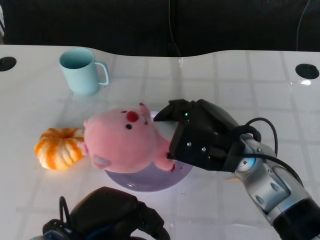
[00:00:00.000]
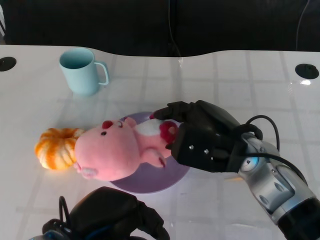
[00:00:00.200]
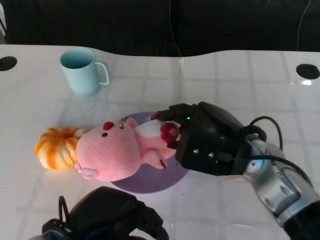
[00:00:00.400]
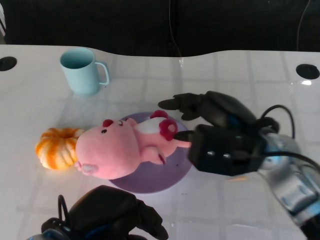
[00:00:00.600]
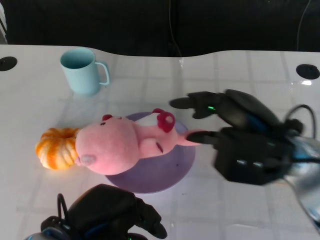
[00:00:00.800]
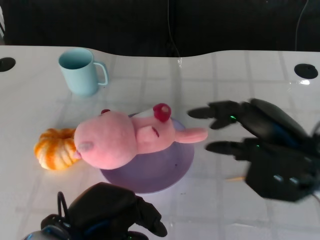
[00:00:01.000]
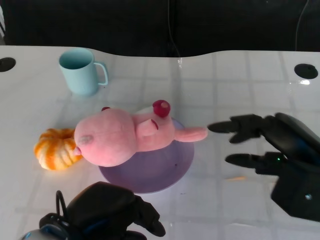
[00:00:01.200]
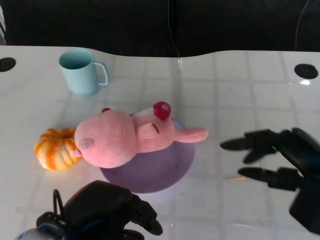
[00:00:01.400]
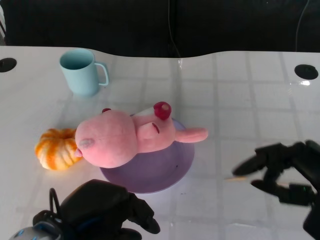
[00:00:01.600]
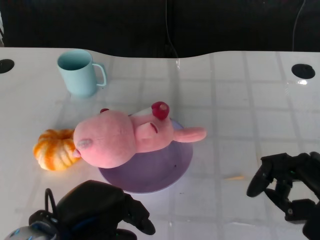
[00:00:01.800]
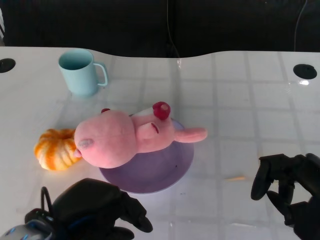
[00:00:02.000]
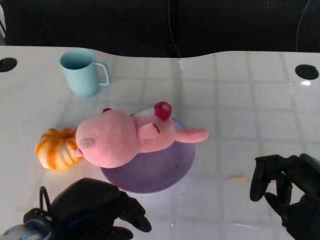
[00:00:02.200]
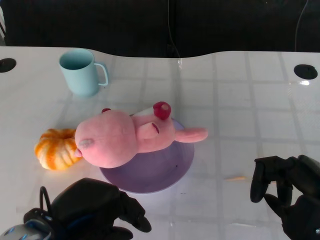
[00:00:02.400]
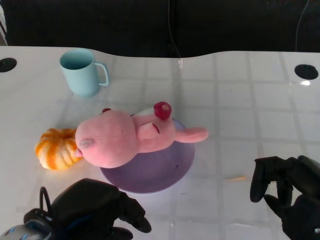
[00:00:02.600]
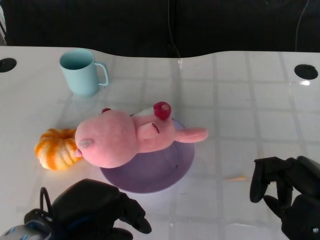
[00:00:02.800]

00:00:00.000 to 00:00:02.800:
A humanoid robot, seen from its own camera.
Task of the whole recording: Pick up the doll on the other side of the plate and place it into the plate.
00:00:00.000 to 00:00:01.400: The right hand goes some 15 cm to the right and backward.
00:00:01.400 to 00:00:02.800: The hands stay close to where they were, moving slightly.

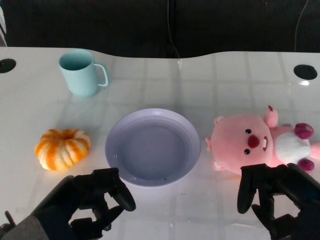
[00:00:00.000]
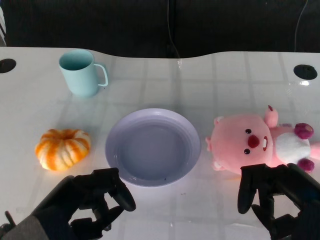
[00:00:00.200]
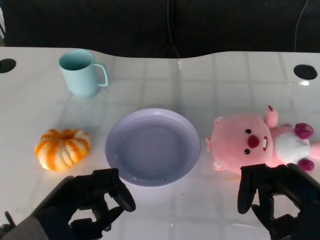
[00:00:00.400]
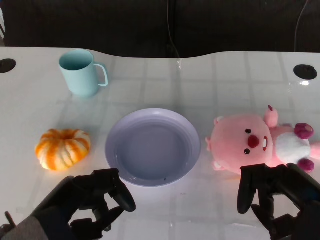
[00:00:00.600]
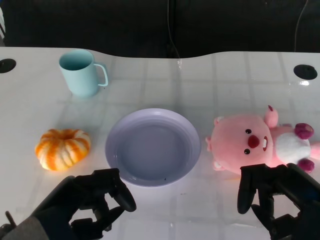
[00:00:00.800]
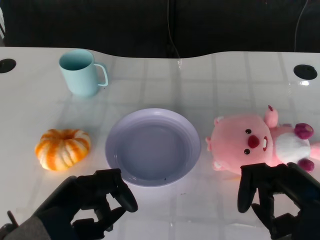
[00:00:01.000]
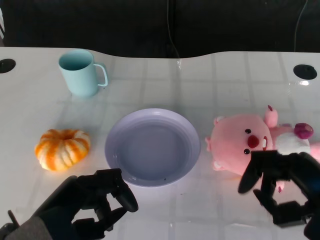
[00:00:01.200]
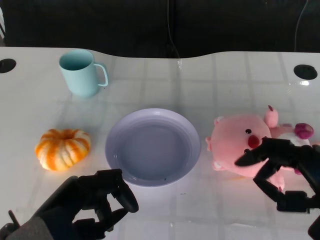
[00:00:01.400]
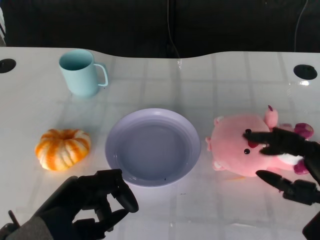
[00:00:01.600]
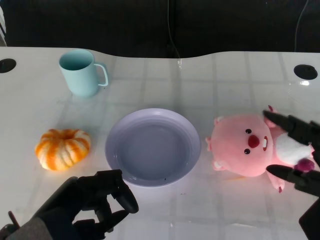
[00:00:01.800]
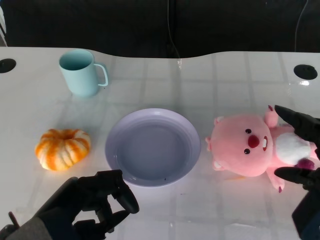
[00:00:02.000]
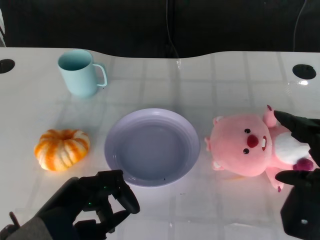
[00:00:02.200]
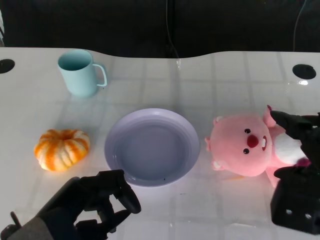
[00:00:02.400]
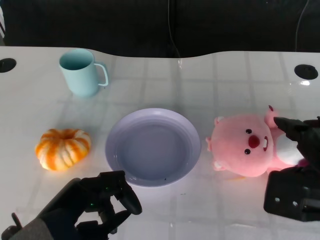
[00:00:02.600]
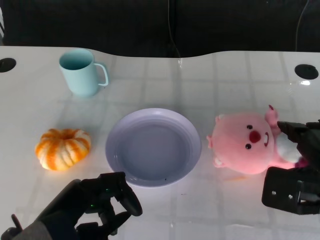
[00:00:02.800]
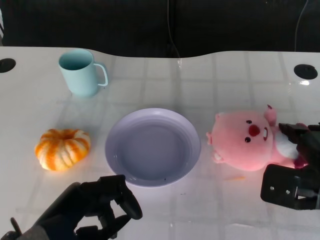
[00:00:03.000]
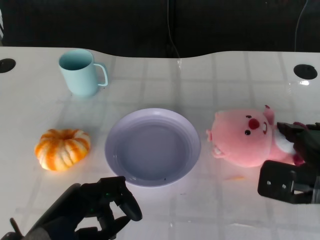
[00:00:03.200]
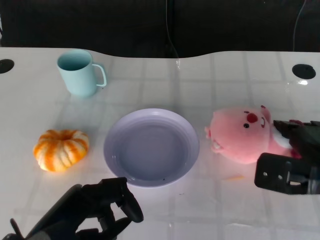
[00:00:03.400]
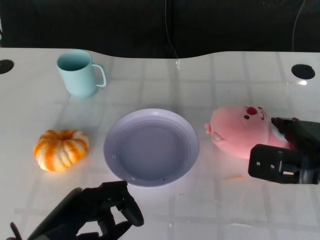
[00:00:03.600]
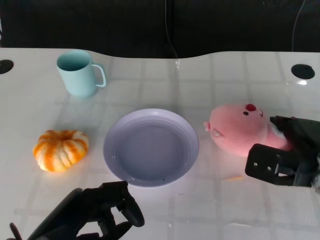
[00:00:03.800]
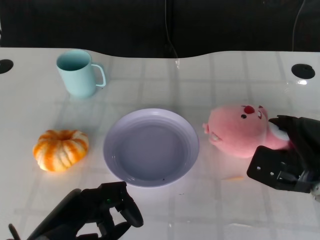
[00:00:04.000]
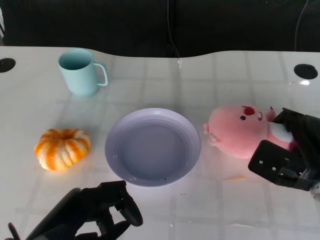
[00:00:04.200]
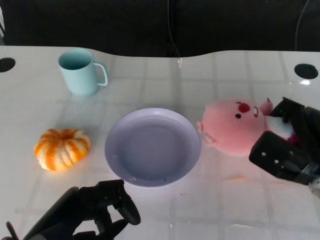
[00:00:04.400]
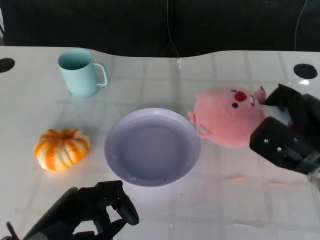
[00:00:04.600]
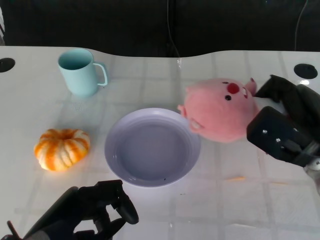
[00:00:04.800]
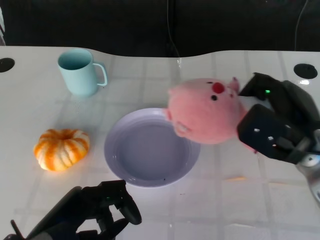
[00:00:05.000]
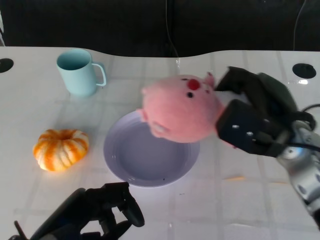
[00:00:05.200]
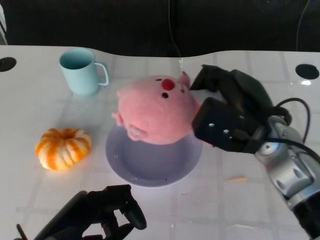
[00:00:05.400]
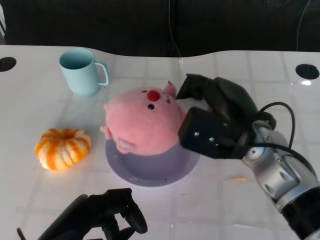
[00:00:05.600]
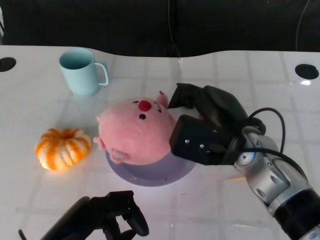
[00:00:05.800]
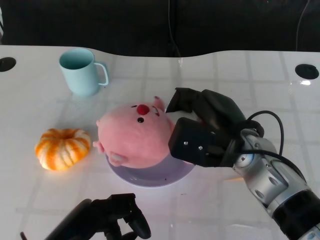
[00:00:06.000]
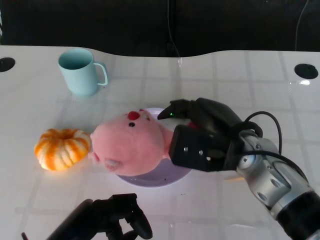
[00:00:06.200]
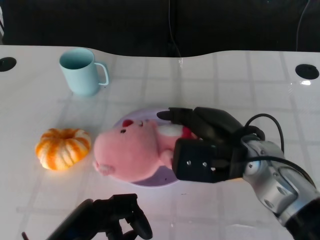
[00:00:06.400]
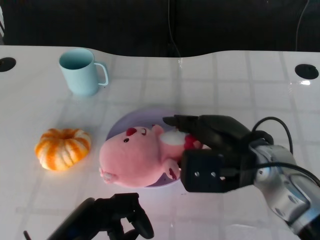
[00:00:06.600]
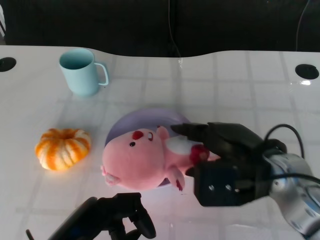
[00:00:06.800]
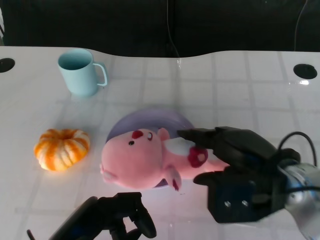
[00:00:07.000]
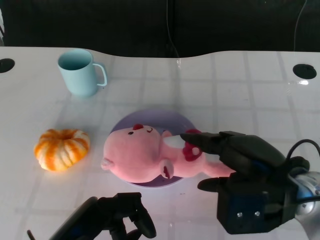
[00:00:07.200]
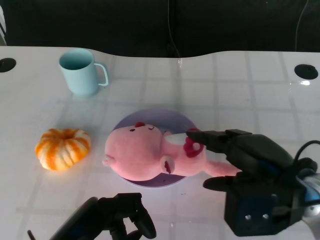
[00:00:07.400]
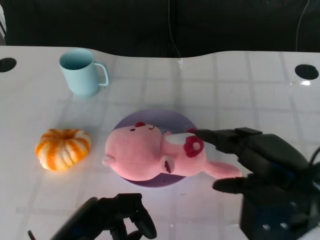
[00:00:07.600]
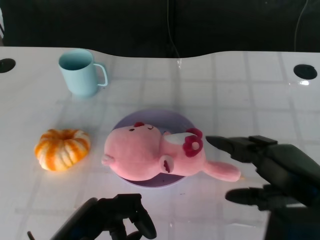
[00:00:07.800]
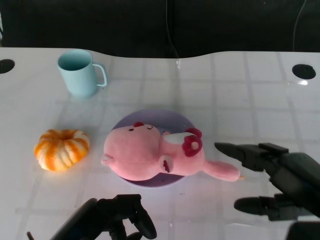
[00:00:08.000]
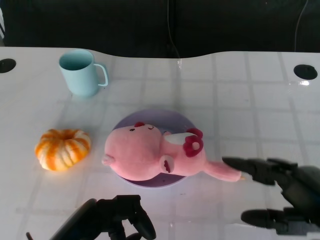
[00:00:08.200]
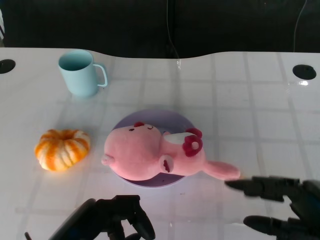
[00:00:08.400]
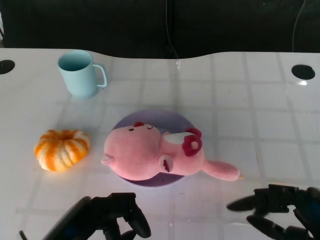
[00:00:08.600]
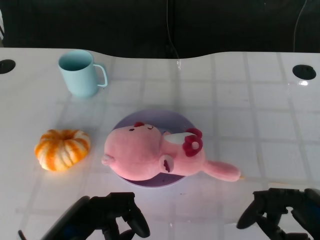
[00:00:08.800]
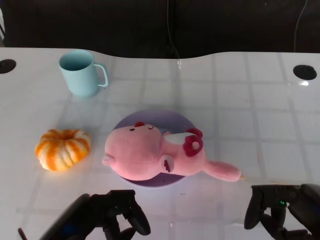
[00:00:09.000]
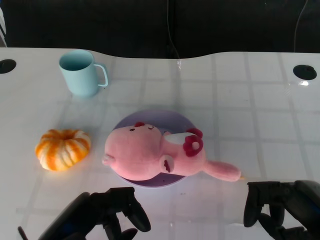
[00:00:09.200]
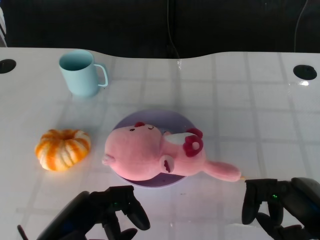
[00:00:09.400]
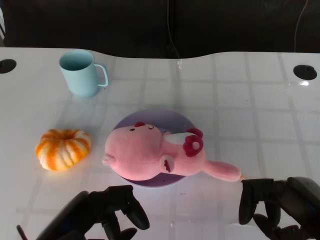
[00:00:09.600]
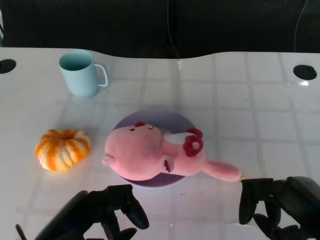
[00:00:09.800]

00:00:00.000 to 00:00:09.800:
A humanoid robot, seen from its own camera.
Task of the whole recording: Pick up the doll on the other side of the plate and place it into the plate.
Step, 00:00:01.000 to 00:00:04.600: Grasp the pink doll with the right gripper.
Step, 00:00:05.000 to 00:00:07.600: Place the pink doll into the plate with the right gripper.
00:00:01.400 to 00:00:02.800: The right hand travels forward by roughly 5 cm.
00:00:02.800 to 00:00:04.200: The right hand shifts approximately 5 cm downward.
00:00:04.200 to 00:00:05.600: The right hand heads to the left and upward, covering approximately 15 cm.
00:00:05.600 to 00:00:07.000: The right hand heads backward, covering approximately 5 cm.
00:00:07.000 to 00:00:08.400: The right hand travels backward and to the right by some 15 cm.
00:00:08.400 to 00:00:09.800: The hands stay close to where they were, moving slightly.

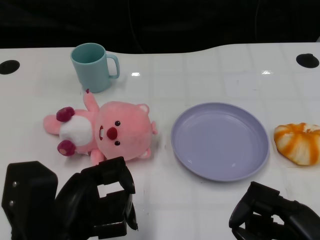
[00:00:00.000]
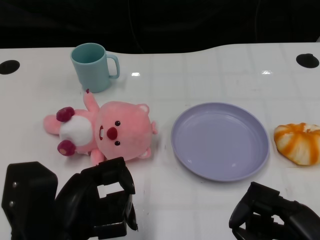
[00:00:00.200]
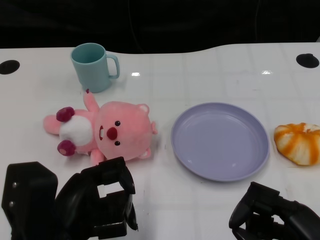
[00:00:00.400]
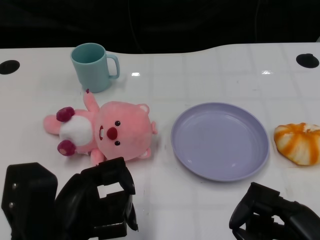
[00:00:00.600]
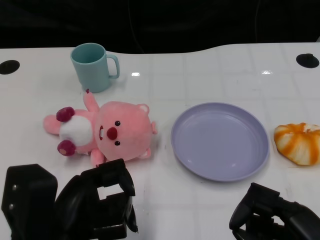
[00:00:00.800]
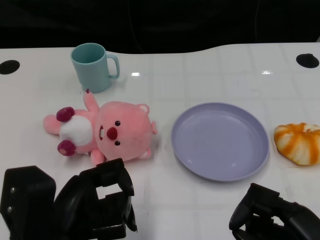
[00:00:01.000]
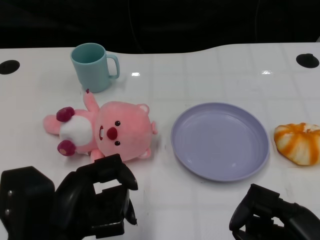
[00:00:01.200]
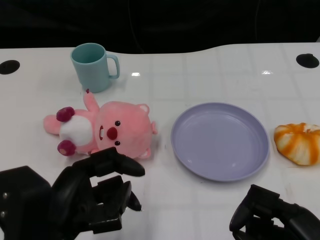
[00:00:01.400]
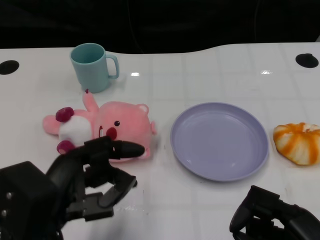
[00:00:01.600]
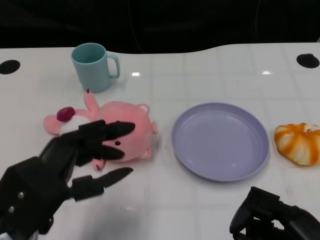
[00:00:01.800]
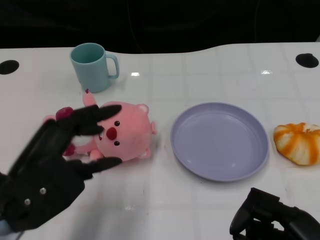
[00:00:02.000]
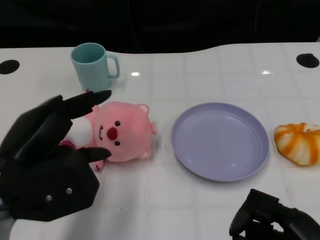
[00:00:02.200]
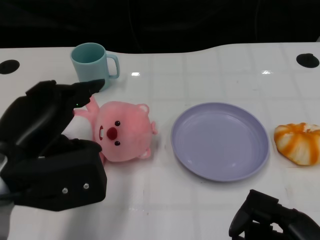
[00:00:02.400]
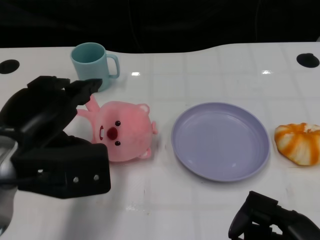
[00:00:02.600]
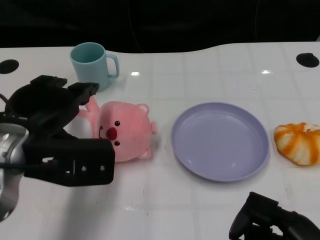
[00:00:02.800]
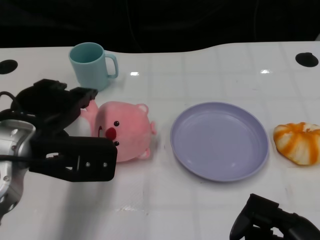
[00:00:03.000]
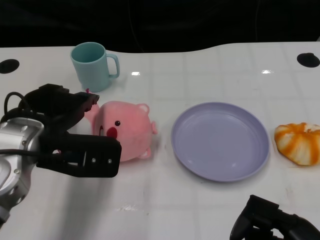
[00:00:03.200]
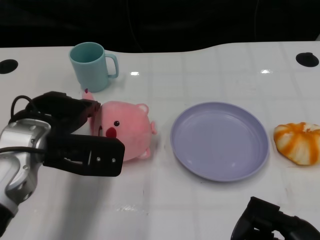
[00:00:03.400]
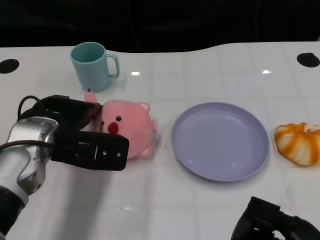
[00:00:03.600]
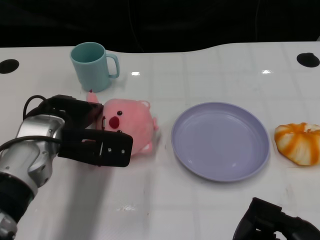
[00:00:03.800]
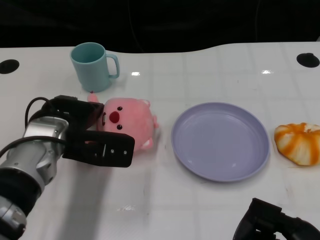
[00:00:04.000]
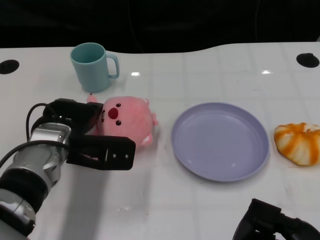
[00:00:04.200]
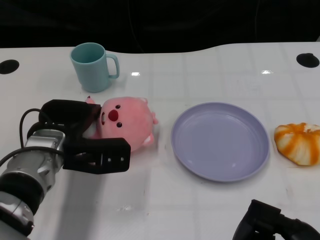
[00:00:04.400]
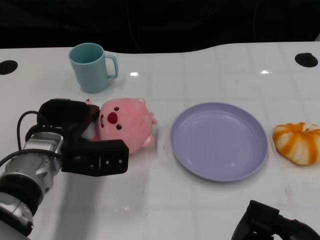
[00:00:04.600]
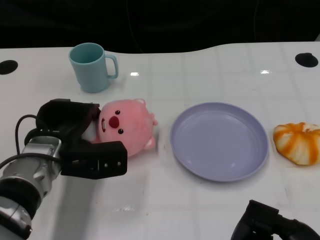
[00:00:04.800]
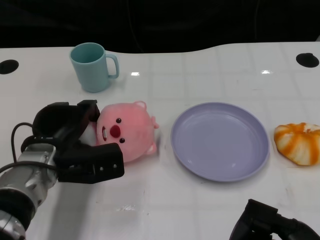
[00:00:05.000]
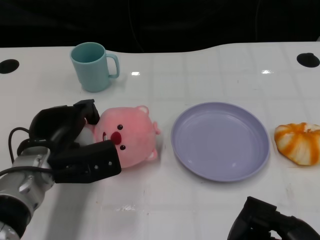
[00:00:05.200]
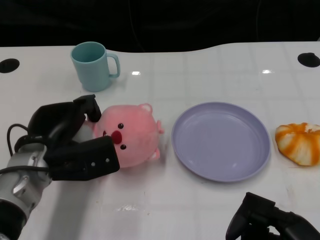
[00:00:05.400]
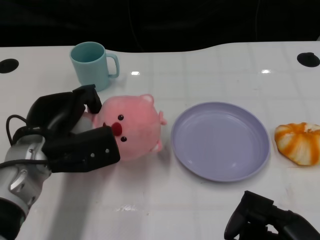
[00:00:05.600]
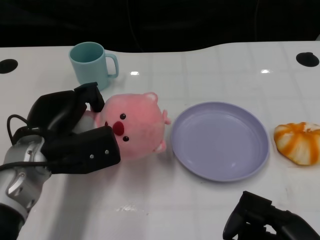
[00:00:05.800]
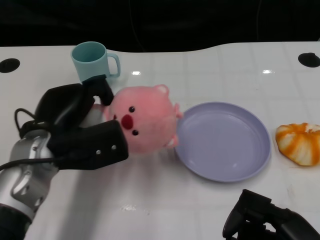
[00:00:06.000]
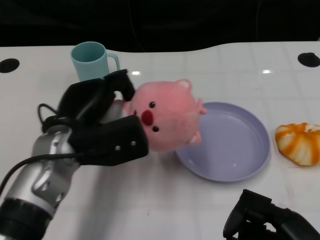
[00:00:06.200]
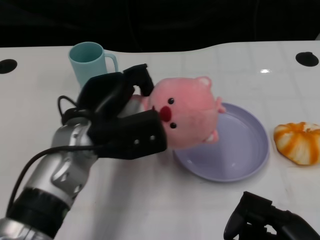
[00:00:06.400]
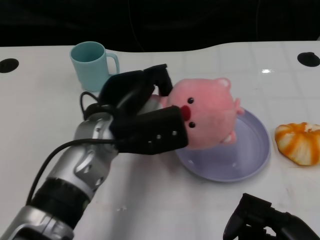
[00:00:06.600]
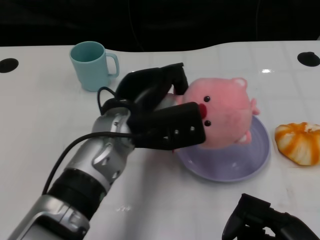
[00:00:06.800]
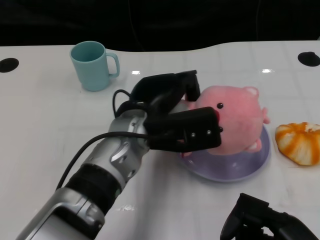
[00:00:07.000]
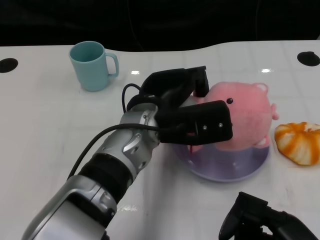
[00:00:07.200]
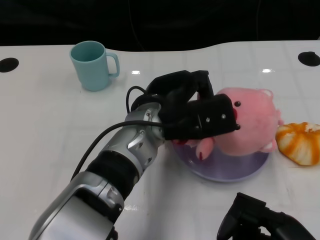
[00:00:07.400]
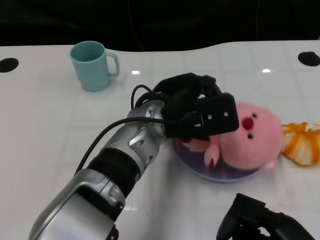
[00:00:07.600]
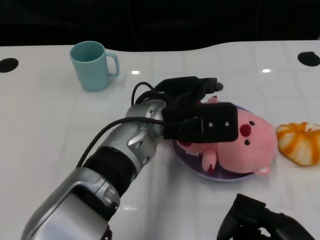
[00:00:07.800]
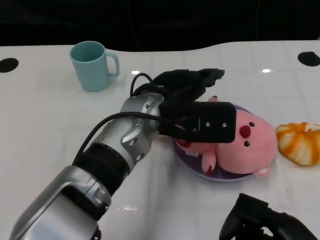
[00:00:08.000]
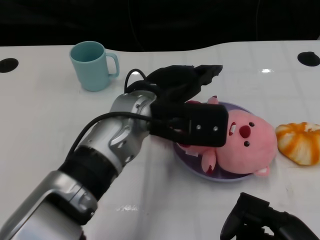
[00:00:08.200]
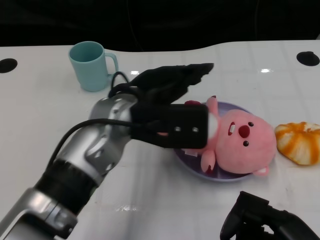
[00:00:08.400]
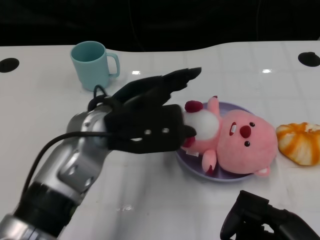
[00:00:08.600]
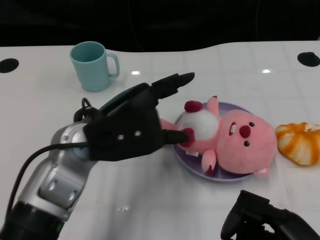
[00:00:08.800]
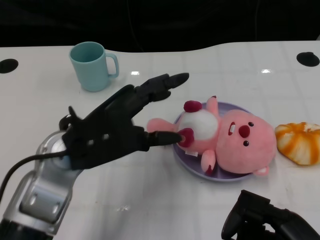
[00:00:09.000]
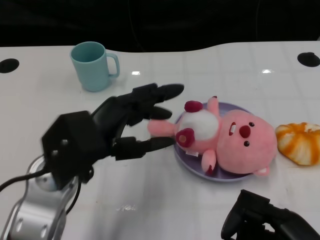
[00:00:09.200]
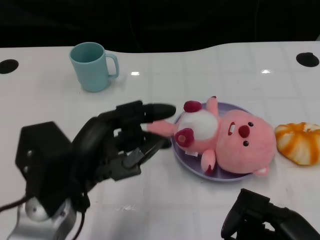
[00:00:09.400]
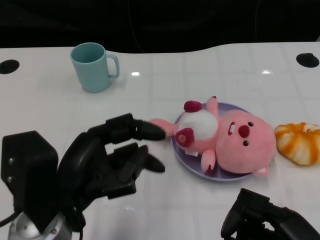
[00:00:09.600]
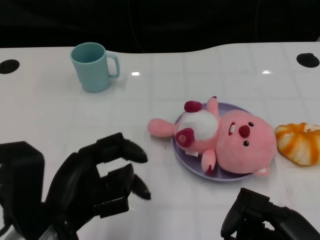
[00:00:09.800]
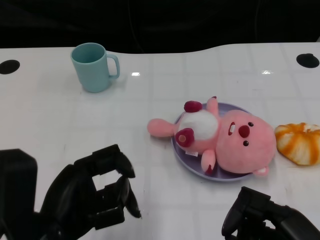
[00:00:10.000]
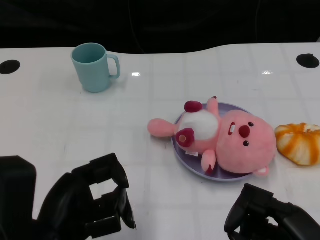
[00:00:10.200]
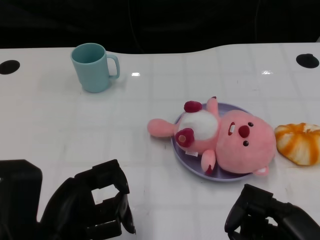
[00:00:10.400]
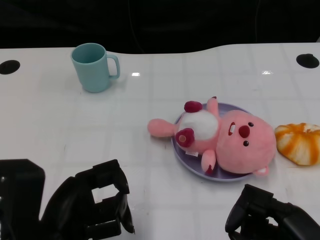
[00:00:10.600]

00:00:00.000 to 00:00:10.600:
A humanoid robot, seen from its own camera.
Task of the whole recording: Pick up the doll on one side of the plate and place it into the plate.
Step, 00:00:01.000 to 00:00:05.400: Grasp the pink doll with the left gripper.
Step, 00:00:05.600 to 00:00:07.800: Place the pink doll into the plate with the left gripper.
00:00:01.600 to 00:00:03.000: The left hand travels forward by some 10 cm.
00:00:03.000 to 00:00:04.600: The left hand is displaced downward by approximately 10 cm.
00:00:06.000 to 00:00:07.600: The left hand shifts approximately 15 cm to the right.
00:00:07.600 to 00:00:09.000: The left hand heads to the left, covering approximately 10 cm.
00:00:09.000 to 00:00:10.600: The left hand heads backward, covering some 10 cm.
